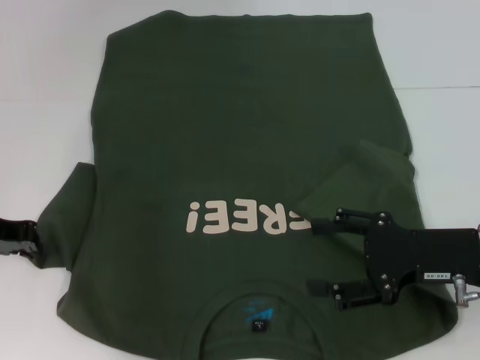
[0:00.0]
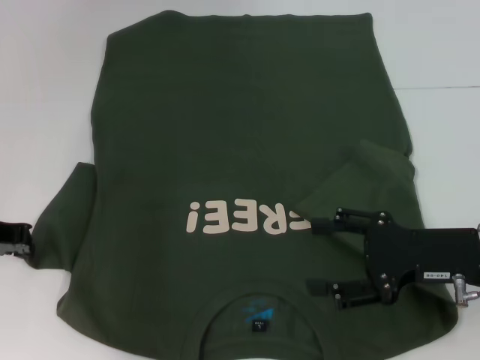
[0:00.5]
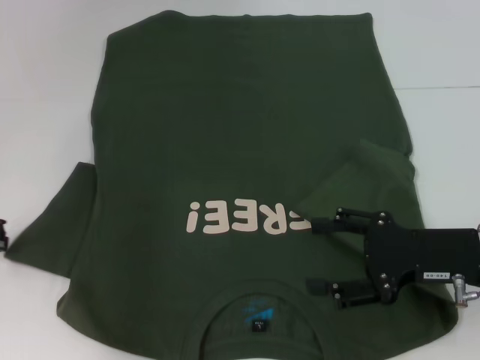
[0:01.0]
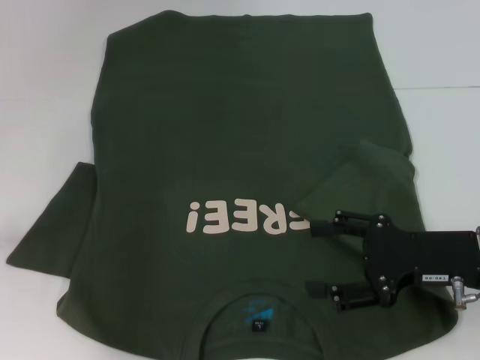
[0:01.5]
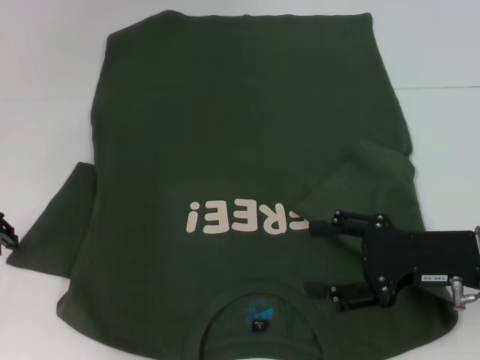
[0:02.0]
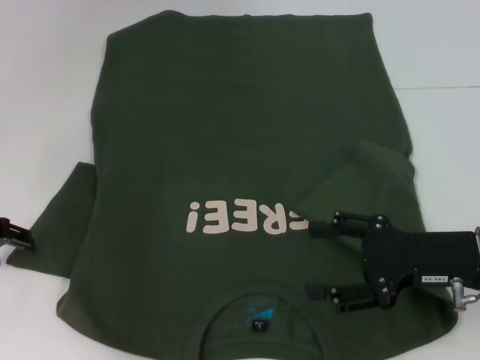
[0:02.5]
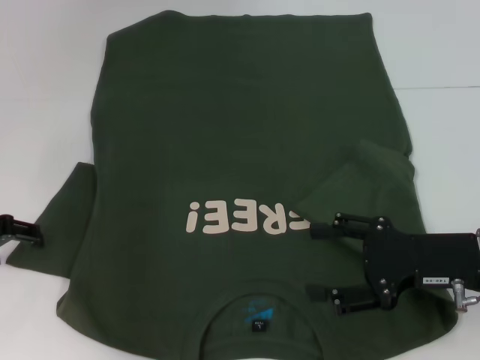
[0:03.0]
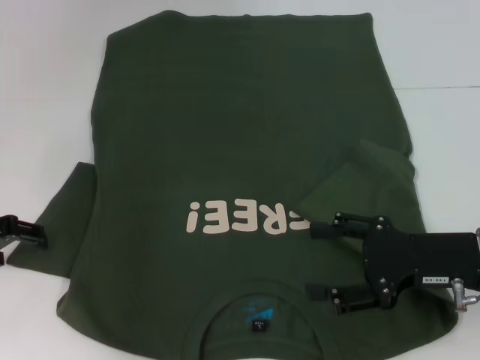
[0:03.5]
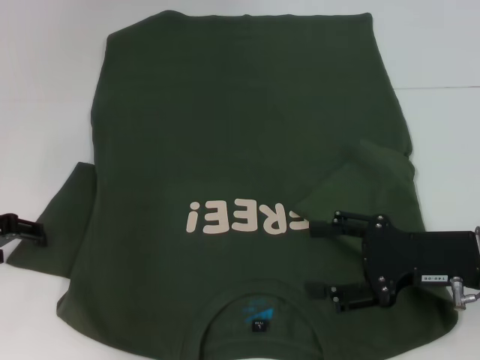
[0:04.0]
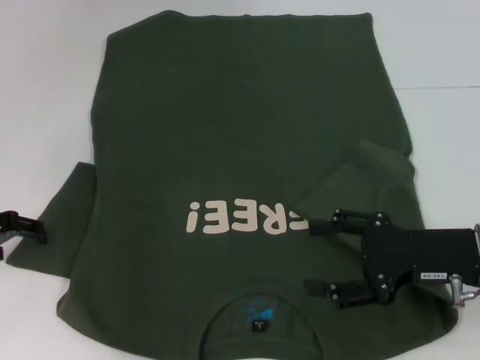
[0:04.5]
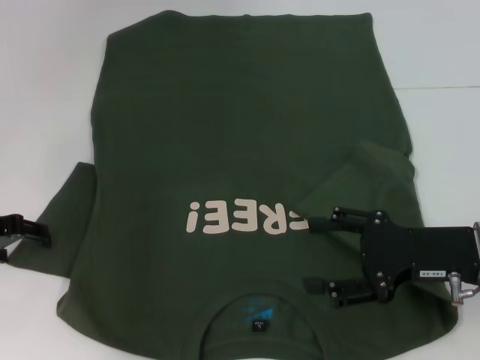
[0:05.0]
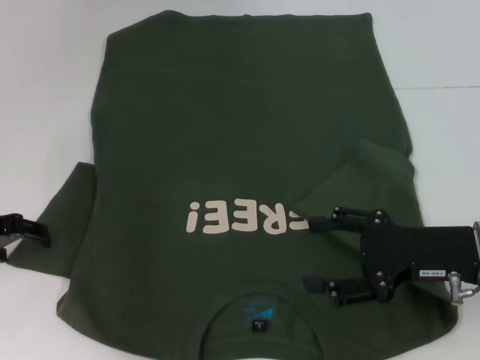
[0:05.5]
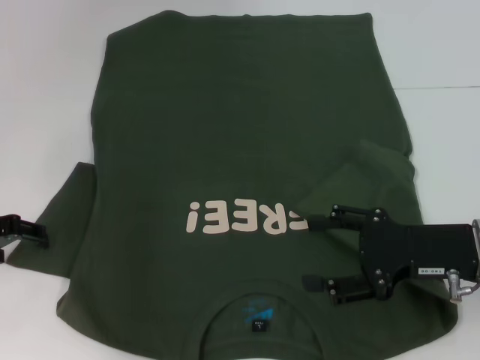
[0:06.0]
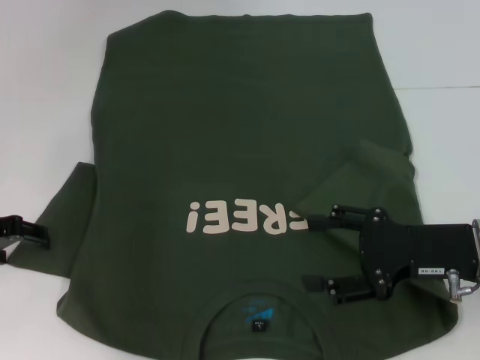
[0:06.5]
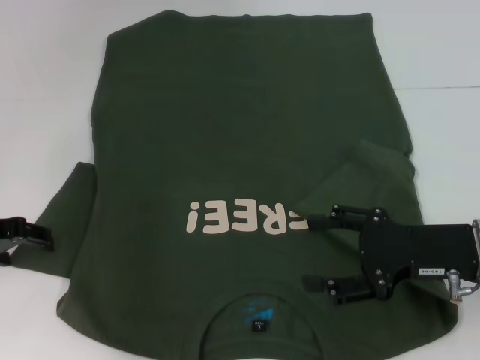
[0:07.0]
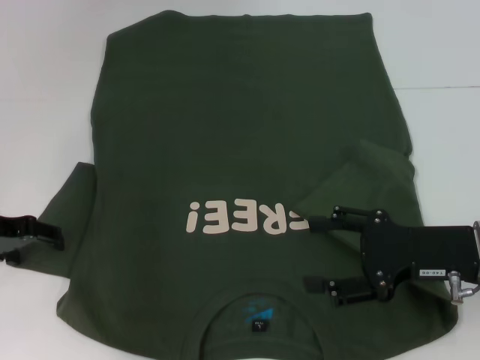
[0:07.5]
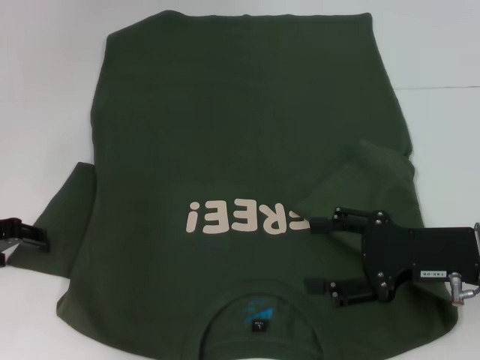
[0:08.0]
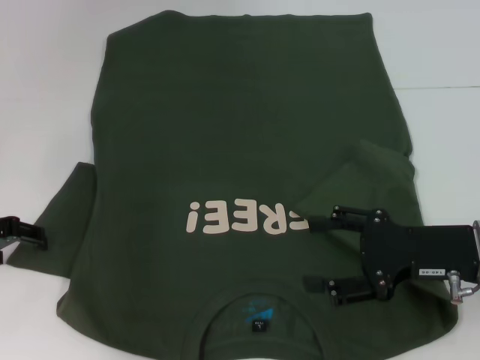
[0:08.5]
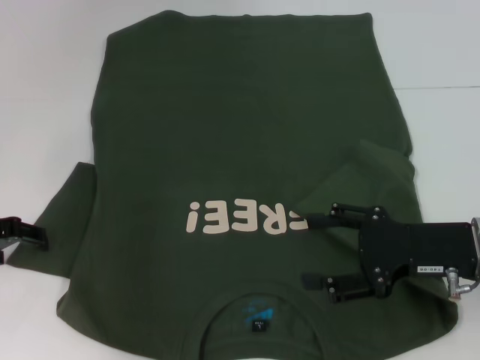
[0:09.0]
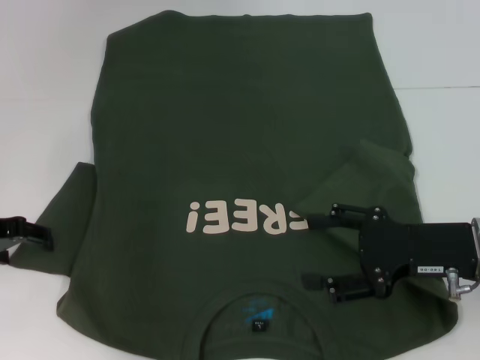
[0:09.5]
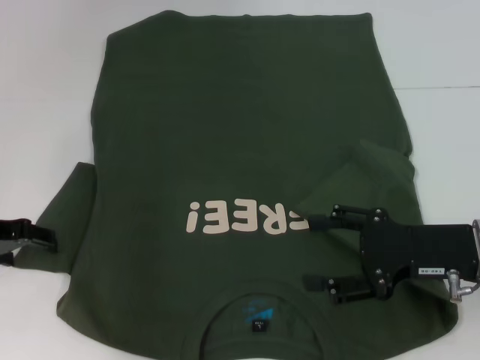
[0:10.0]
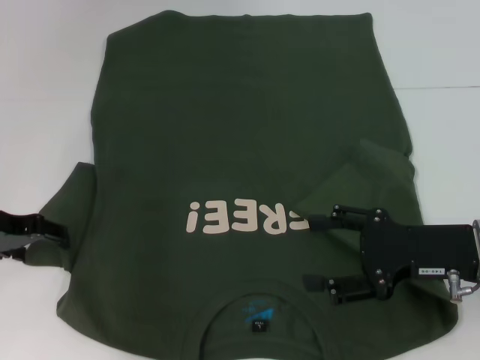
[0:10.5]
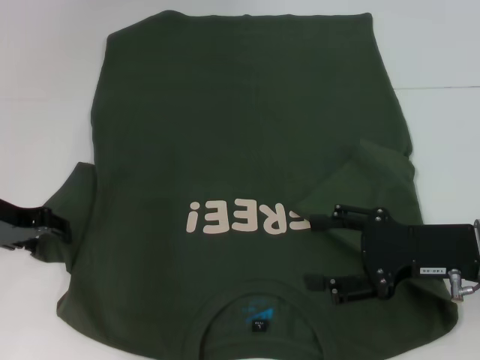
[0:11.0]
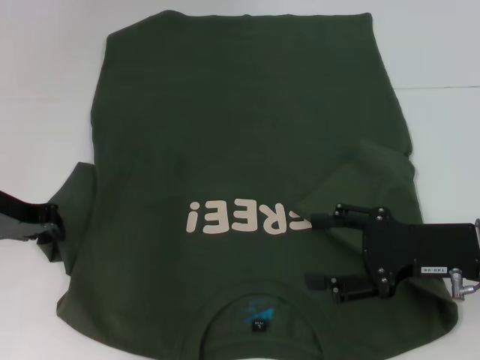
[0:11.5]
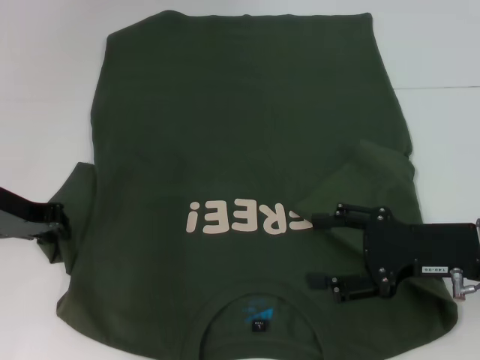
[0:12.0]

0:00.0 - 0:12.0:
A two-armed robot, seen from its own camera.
0:00.0 - 0:02.0: The grippers stay close to where they were, moving slightly.
0:04.0 - 0:06.0: Both grippers stay about where they are.
0:06.0 - 0:08.0: The grippers make only small movements.
0:08.0 - 0:10.0: Neither gripper changes place.
0:10.0 - 0:12.0: The left gripper closes.

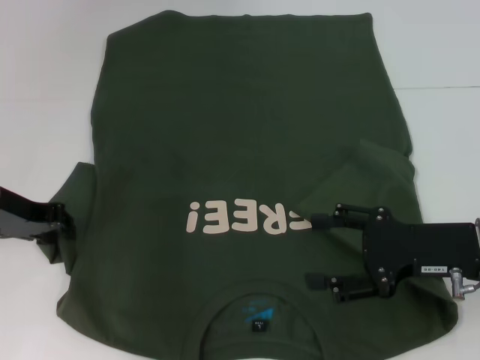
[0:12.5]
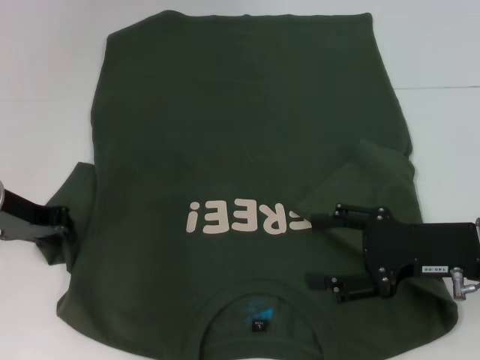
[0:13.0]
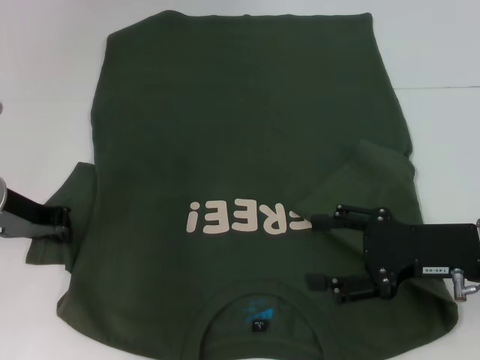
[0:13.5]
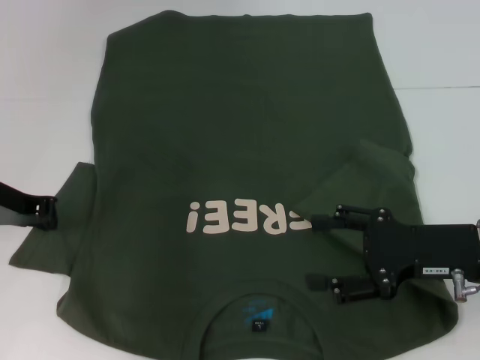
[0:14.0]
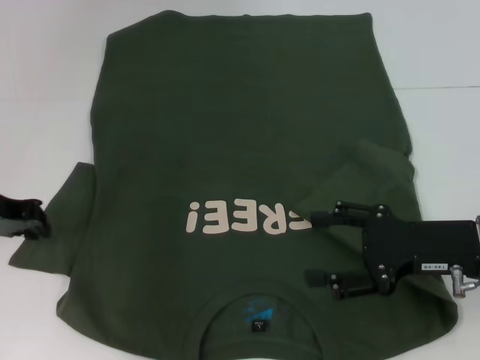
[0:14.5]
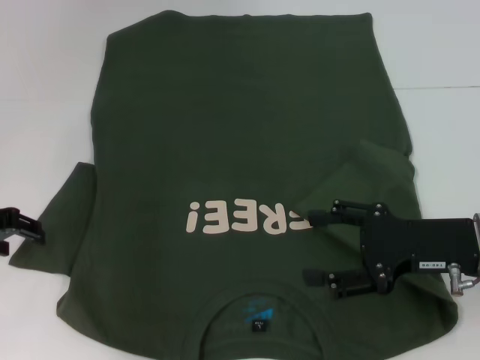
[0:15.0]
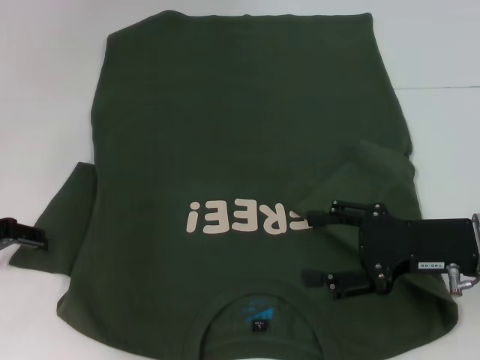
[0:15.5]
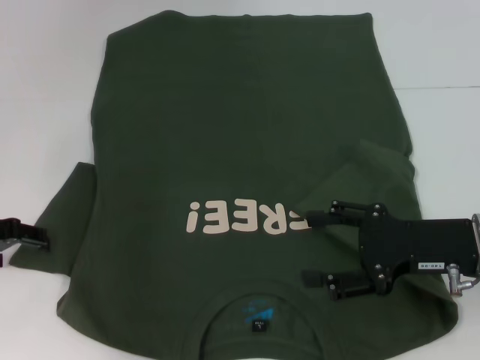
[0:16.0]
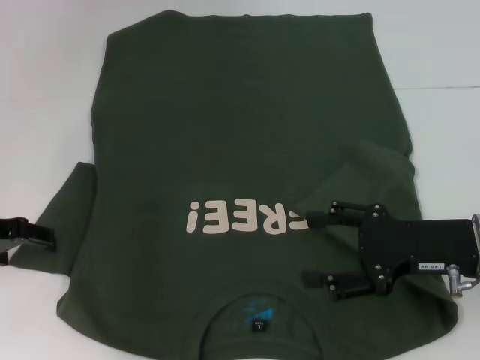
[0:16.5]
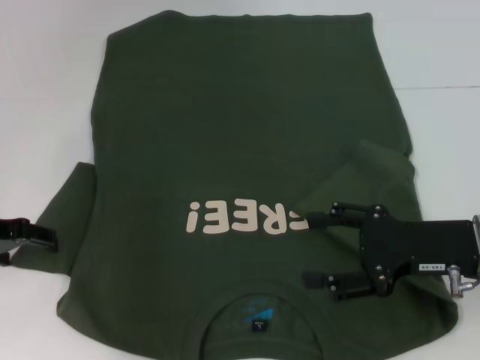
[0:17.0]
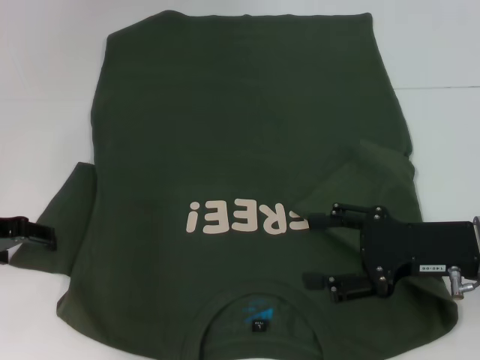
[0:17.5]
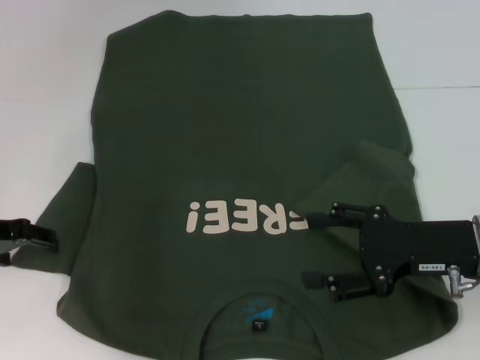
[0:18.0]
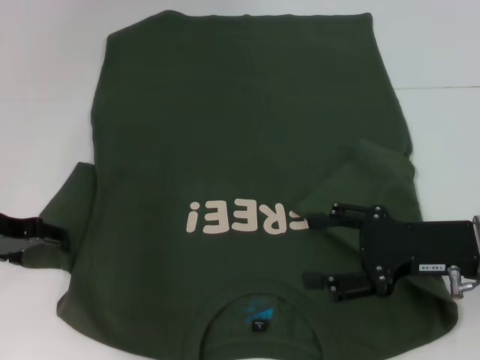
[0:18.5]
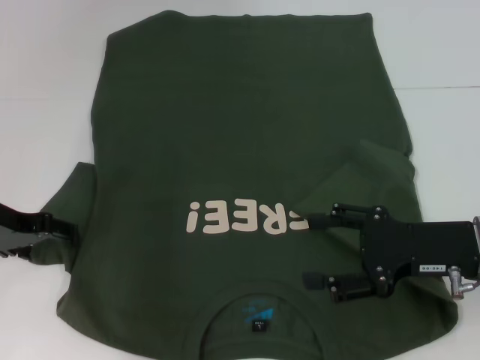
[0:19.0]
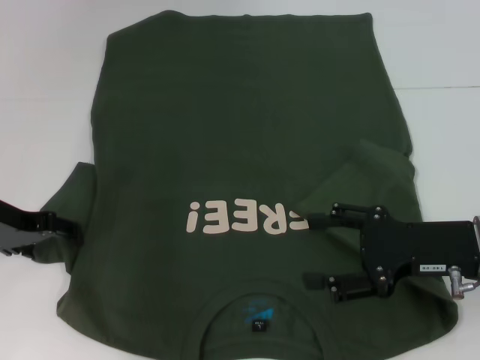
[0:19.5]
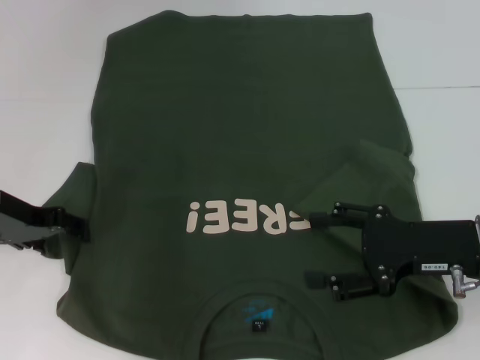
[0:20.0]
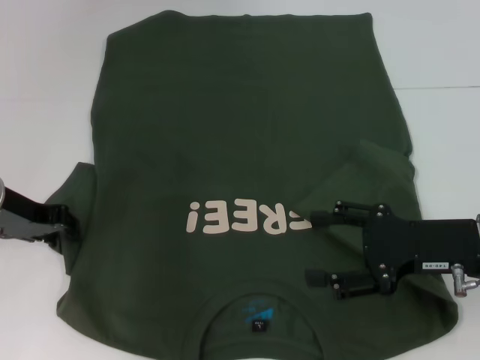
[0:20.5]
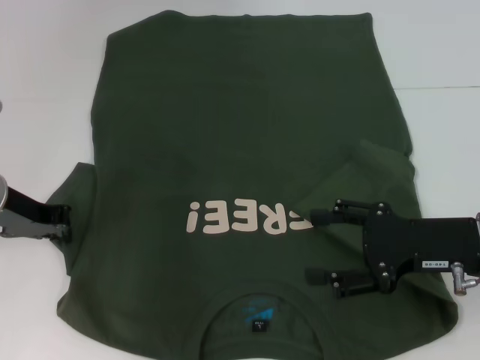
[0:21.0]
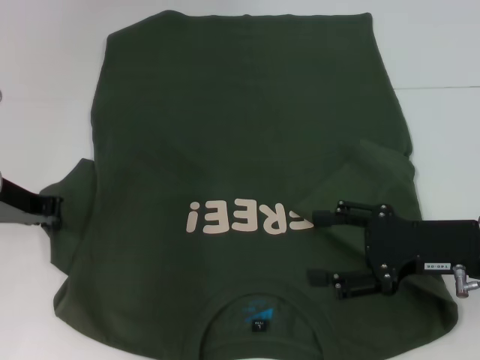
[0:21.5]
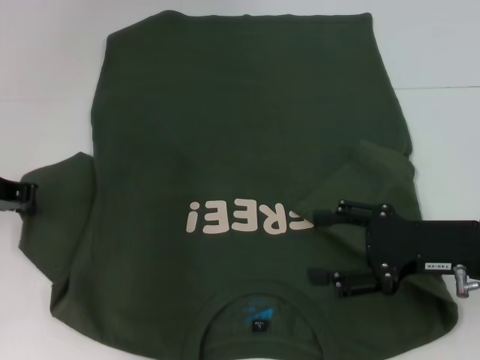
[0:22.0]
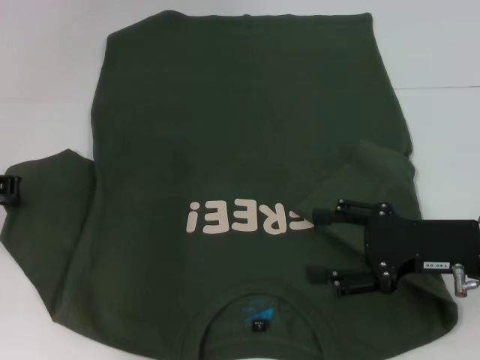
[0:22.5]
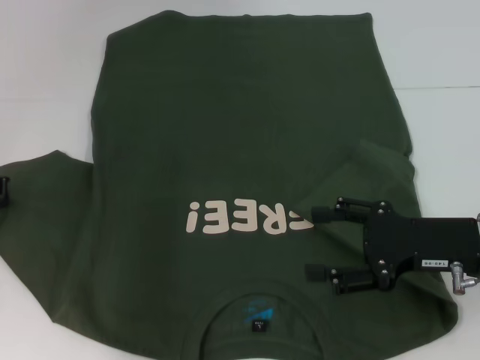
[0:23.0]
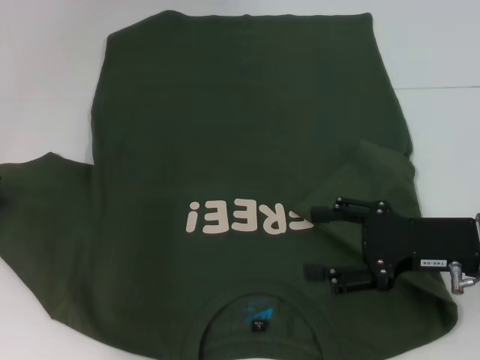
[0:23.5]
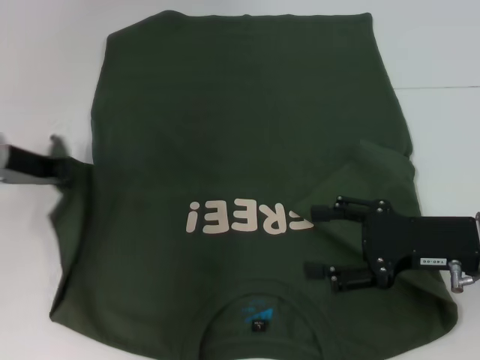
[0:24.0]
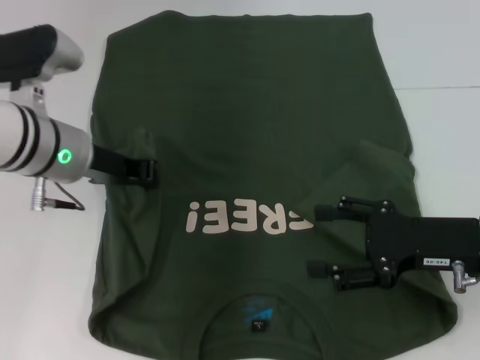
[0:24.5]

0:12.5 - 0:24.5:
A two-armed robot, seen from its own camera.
0:12.5 - 0:14.5: The grippers move only a little.
0:14.5 - 0:16.5: The left gripper opens.
0:16.5 - 0:18.5: Neither gripper changes place.
0:18.5 - 0:20.5: The left gripper closes.
0:20.5 - 0:22.5: The left gripper closes up.
0:22.5 - 0:24.5: The left gripper shifts approximately 10 cm to the right.

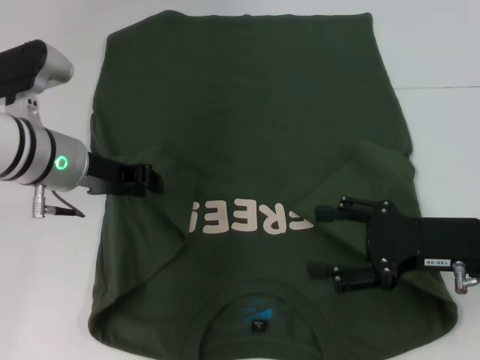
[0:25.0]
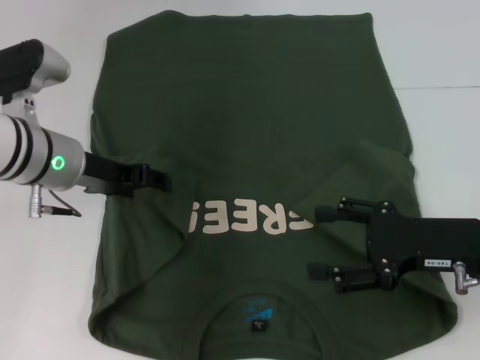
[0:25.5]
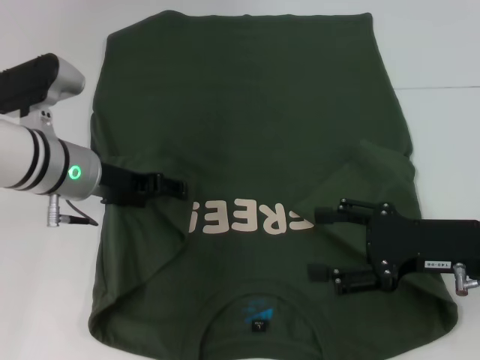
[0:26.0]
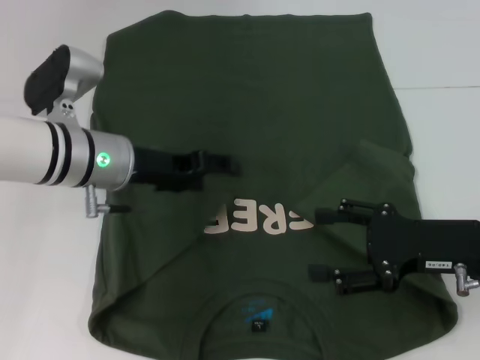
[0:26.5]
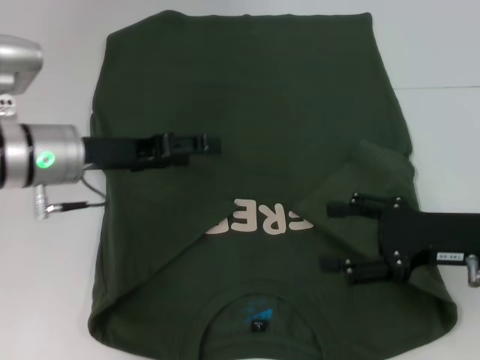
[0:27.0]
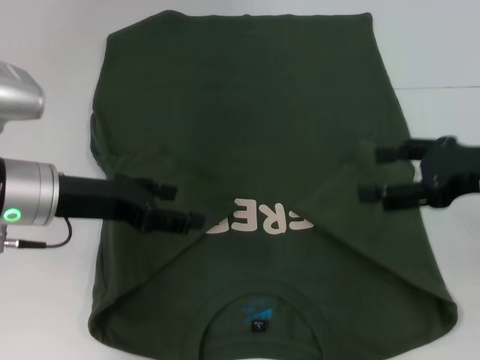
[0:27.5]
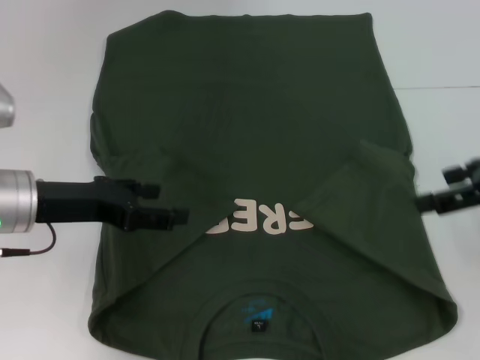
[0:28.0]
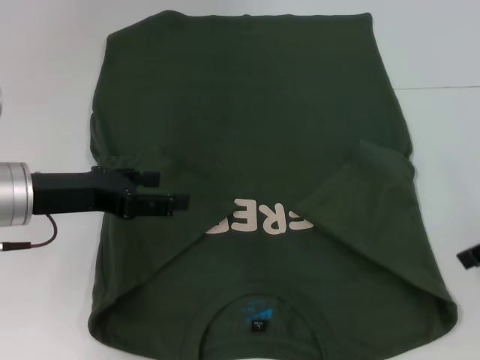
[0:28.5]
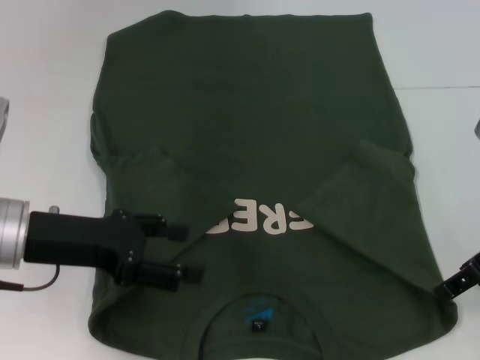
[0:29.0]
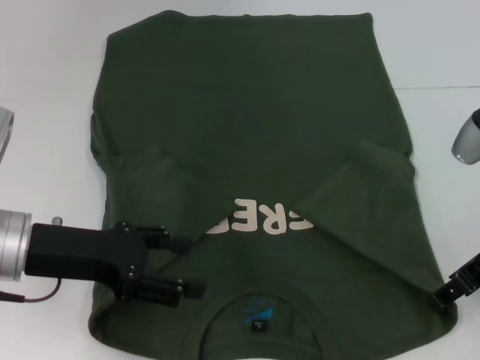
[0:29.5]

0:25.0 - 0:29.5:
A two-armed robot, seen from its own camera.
0:25.0 - 0:27.0: The left gripper opens its fingers.
0:27.0 - 0:29.5: The left gripper goes roughly 10 cm backward.
